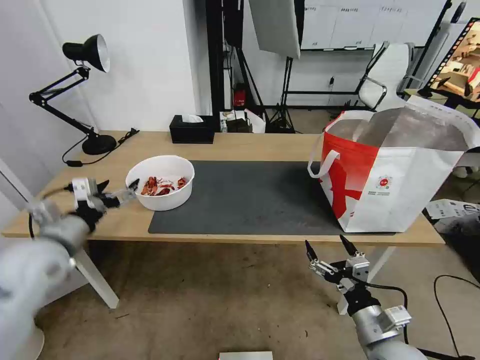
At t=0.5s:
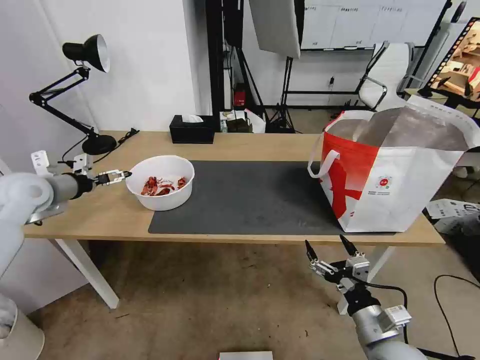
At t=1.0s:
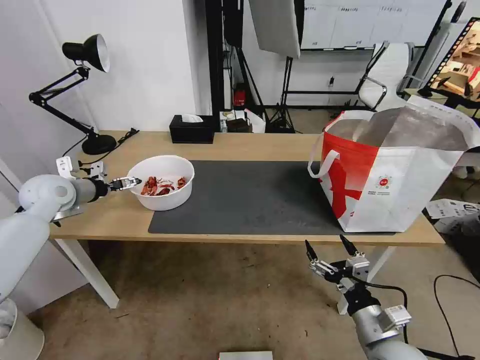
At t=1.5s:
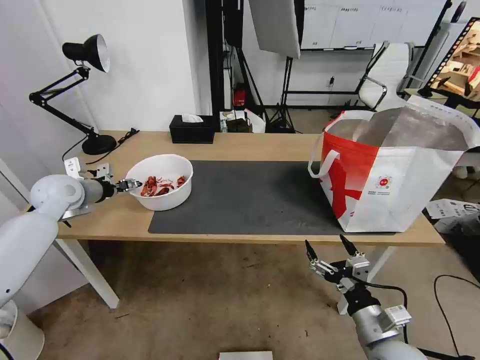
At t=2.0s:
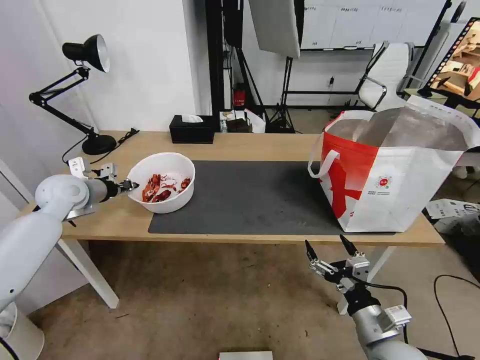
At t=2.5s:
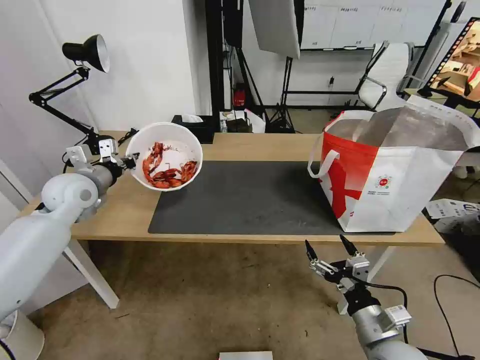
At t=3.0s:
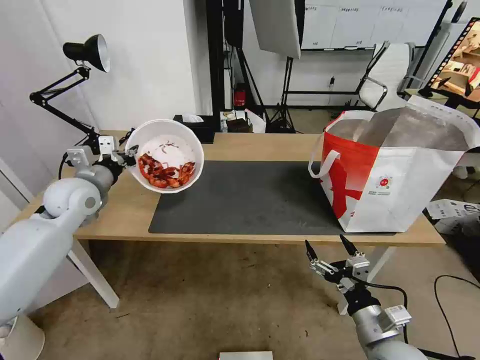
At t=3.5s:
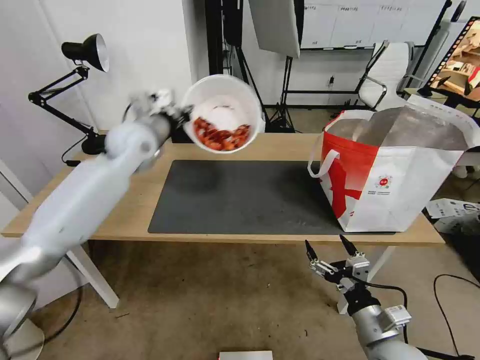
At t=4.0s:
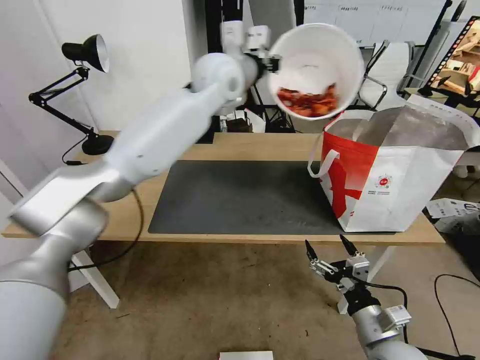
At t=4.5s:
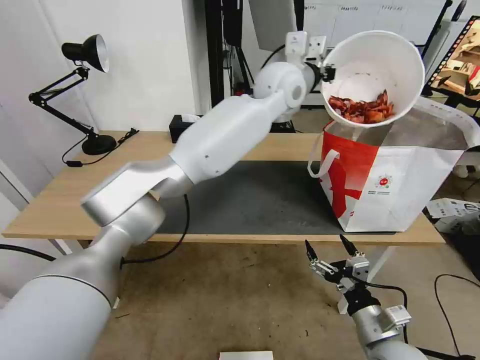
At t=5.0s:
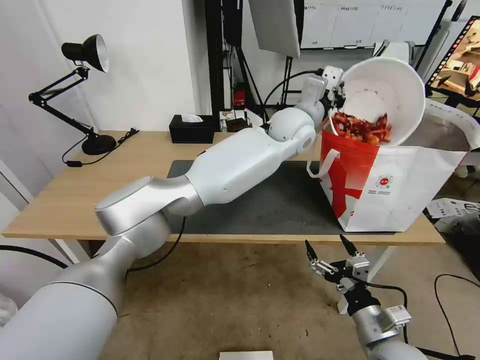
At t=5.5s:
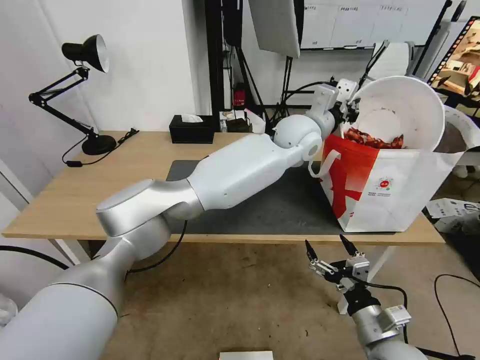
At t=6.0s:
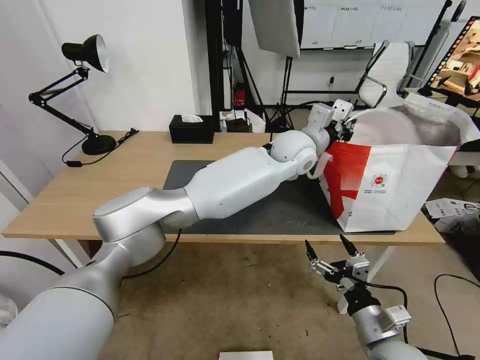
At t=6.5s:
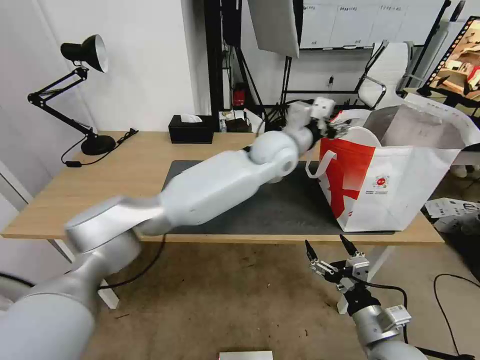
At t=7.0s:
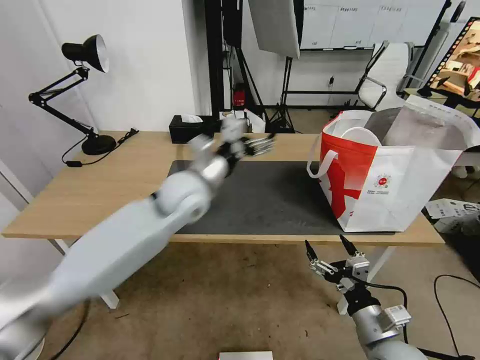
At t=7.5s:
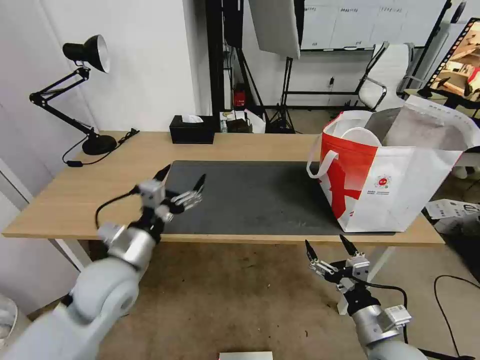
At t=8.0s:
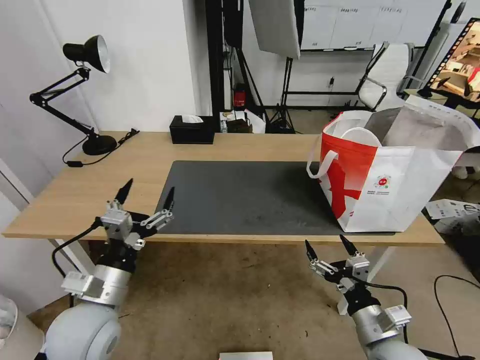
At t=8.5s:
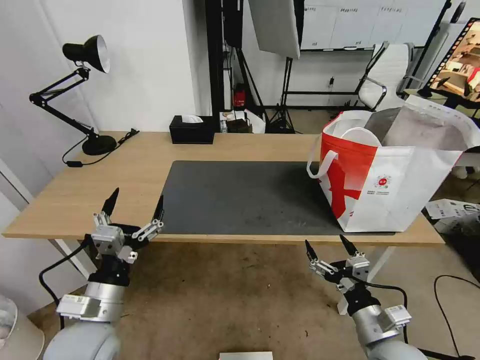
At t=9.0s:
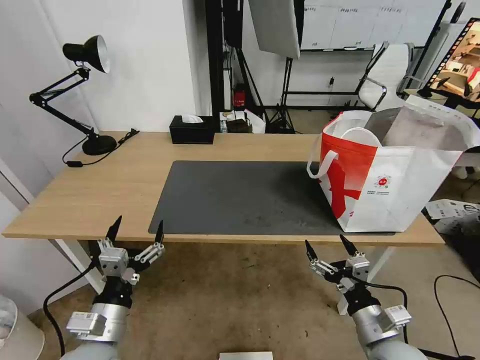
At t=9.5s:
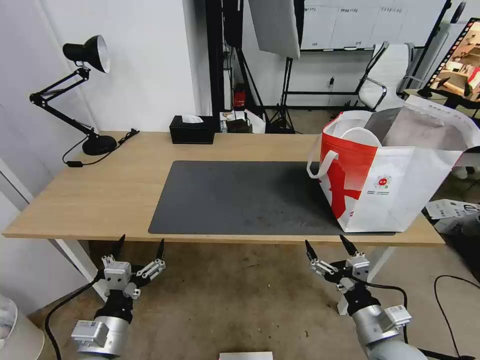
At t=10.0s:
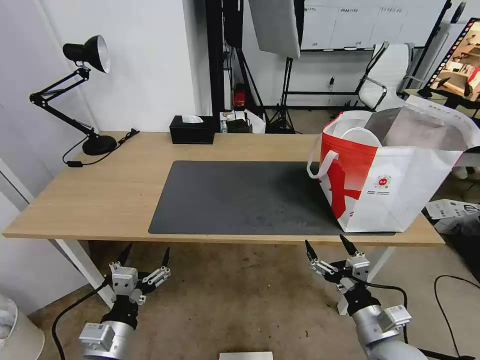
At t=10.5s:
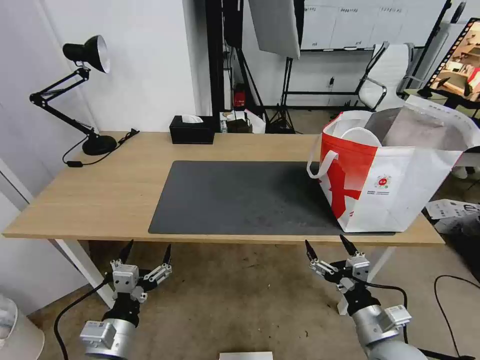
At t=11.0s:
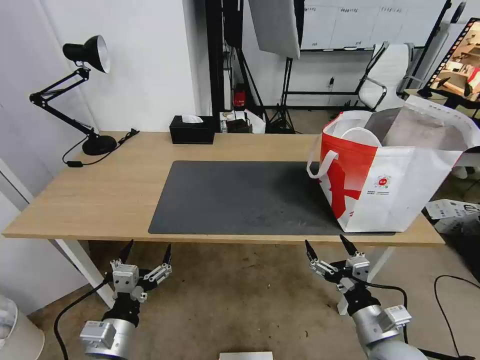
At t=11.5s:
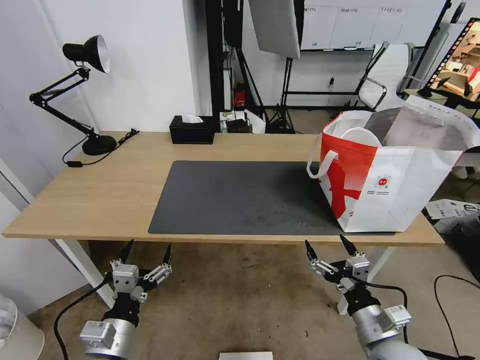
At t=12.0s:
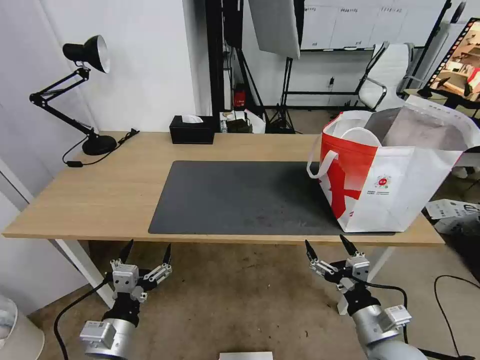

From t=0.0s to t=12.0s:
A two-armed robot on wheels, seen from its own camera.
Task of the whole recording: Pick up the trash from the table and place it into the takeout bag.
From t=0.0s to t=2.0s: The left gripper is displaced forward by some 20 cm, and closes its fingers.
From t=2.0s to t=4.0s: The left gripper moves to the right and upward, roughly 40 cm.
From t=4.0s to t=6.0s: The left gripper moves to the right and downward, about 20 cm.
From t=6.0s to t=8.0s: The left gripper travels to the left and backward by about 50 cm, and opens.
From t=8.0s to t=10.0s: The left gripper heads downward and backward, covering roughly 10 cm.
From t=10.0s to t=12.0s: Both grippers stay about where they are.
